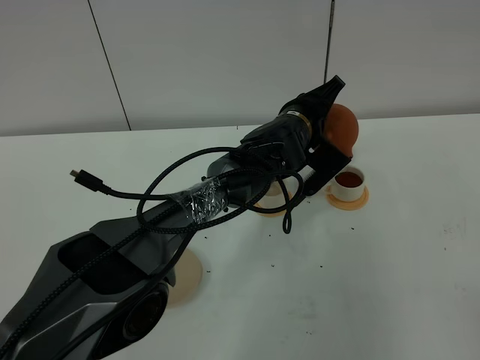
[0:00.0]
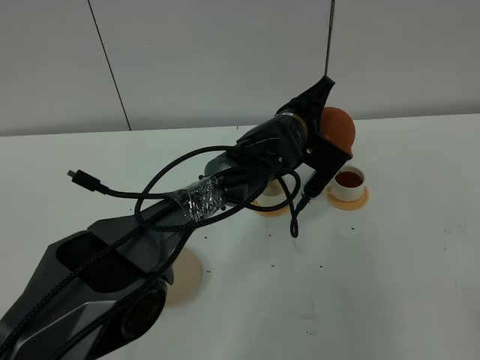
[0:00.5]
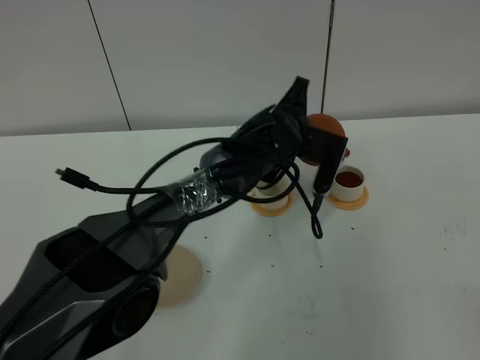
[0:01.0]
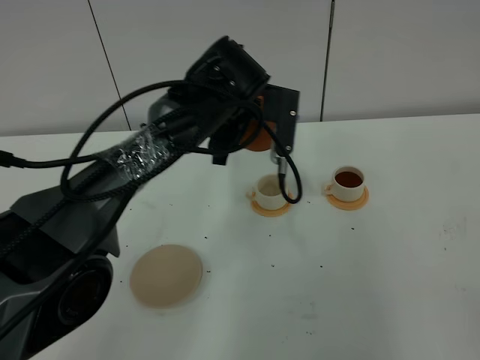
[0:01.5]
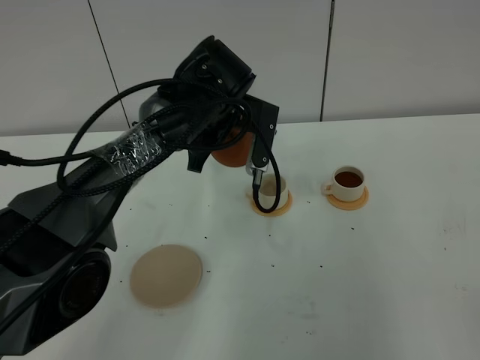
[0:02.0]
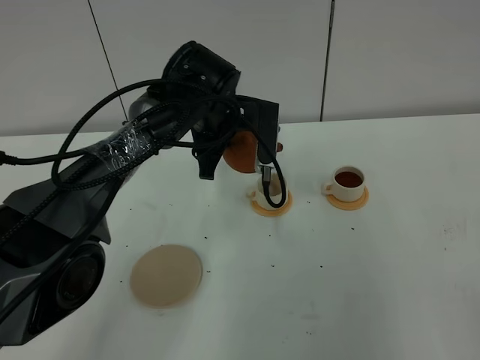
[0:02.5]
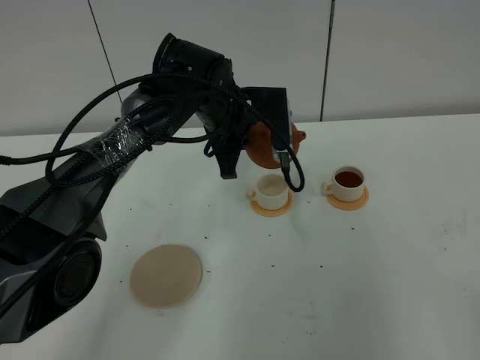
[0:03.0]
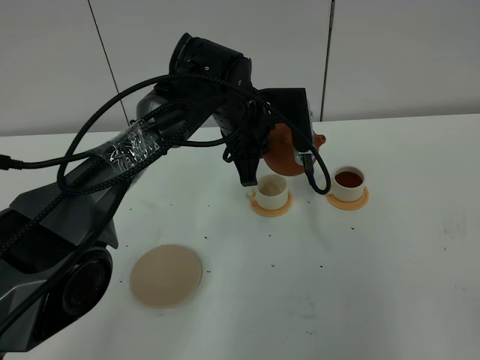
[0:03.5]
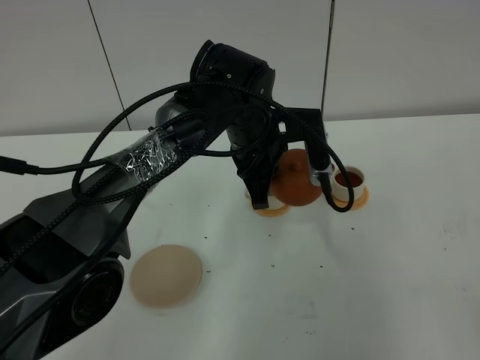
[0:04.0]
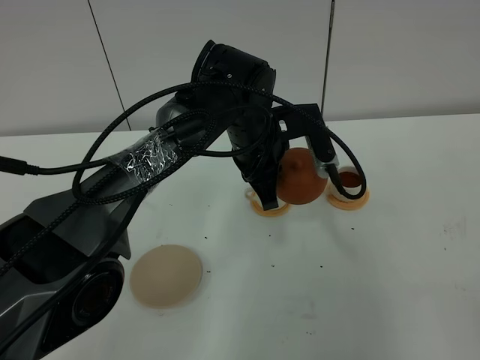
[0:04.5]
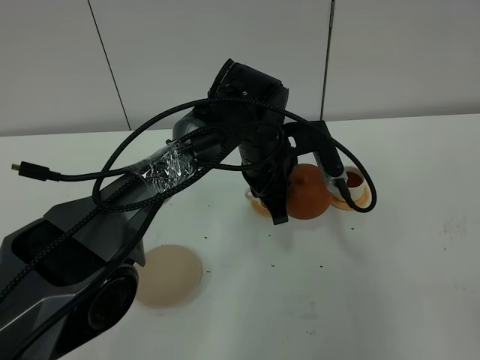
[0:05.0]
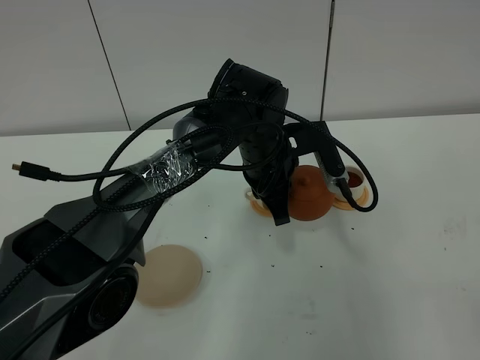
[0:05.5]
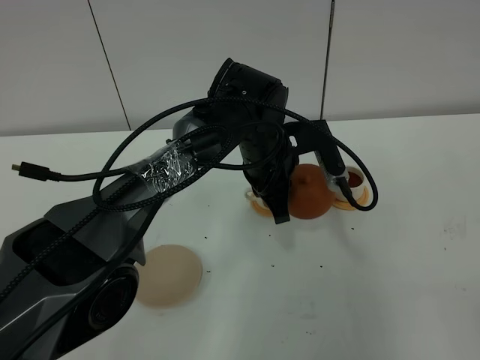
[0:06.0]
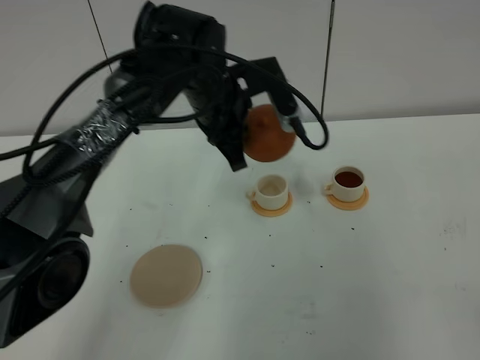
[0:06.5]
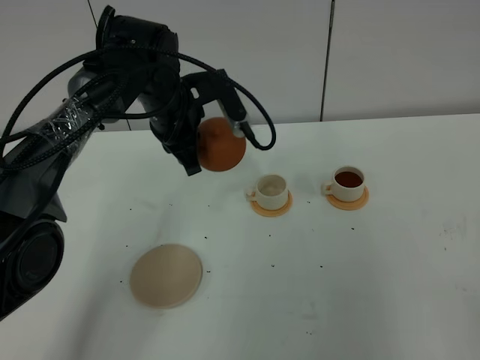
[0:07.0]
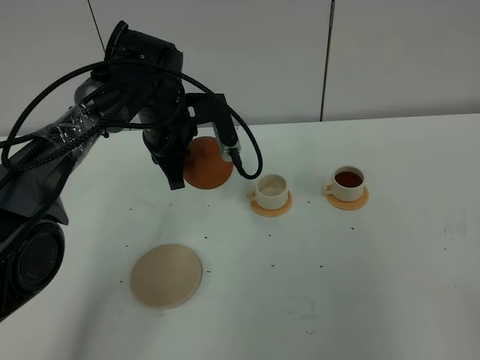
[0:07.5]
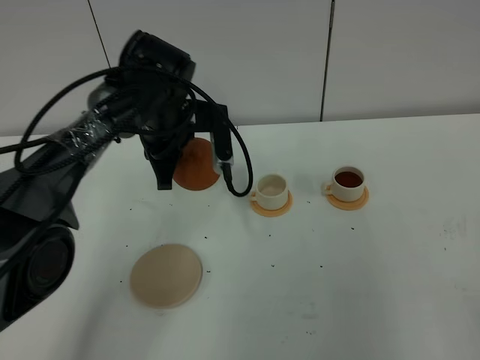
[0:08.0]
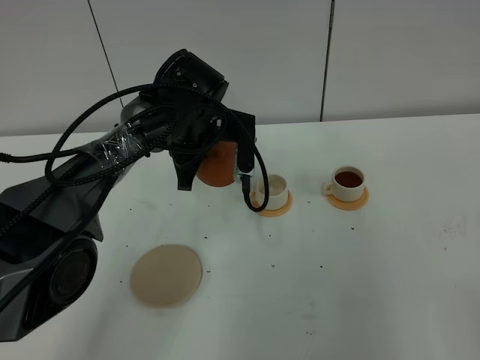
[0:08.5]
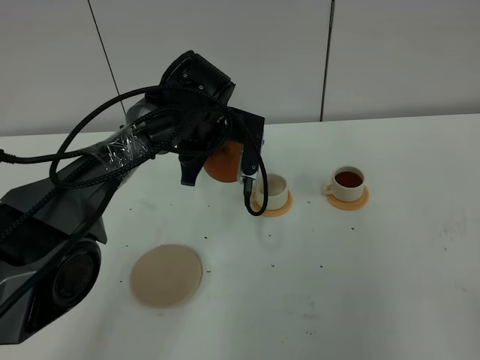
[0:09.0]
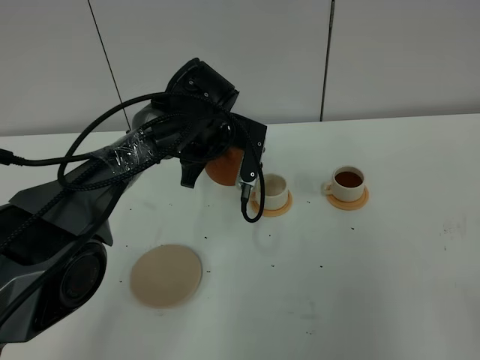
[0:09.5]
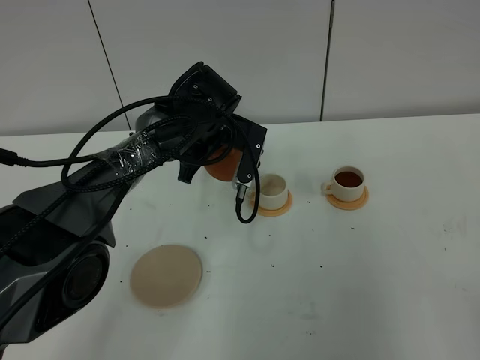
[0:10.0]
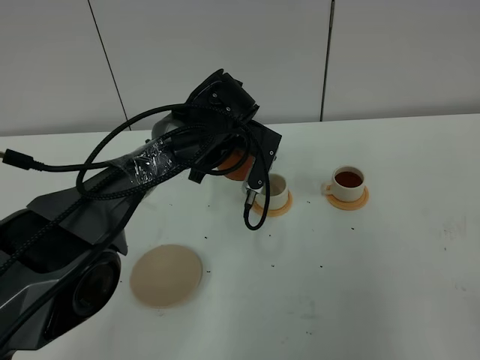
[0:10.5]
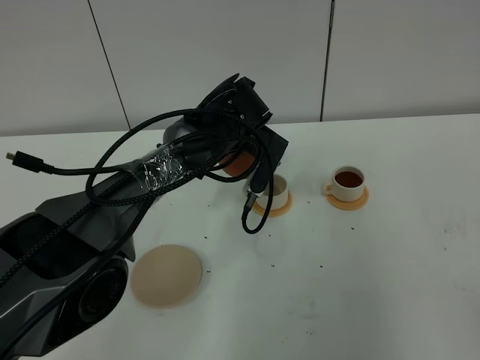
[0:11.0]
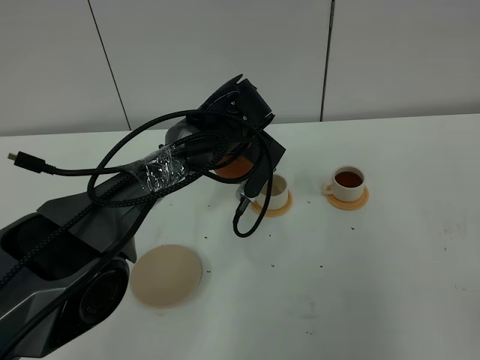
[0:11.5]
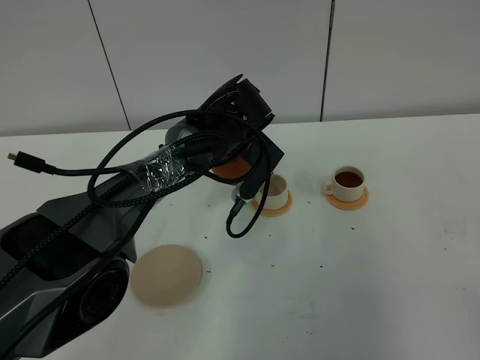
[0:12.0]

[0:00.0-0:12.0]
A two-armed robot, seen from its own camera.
Task of the whole recording: grasp the brown teapot and pour the tea into the two white teacups one by one, put the brown teapot back in its original place.
0:00.0 to 0:02.0: The left gripper goes some 15 cm to the left and upward.
0:02.0 to 0:04.0: The left gripper changes place by about 5 cm.
0:04.0 to 0:06.0: There are only small adjustments of the grippers.
0:06.0 to 0:08.0: The left gripper goes approximately 15 cm to the left.
0:08.0 to 0:10.0: The left gripper travels to the right by approximately 5 cm.

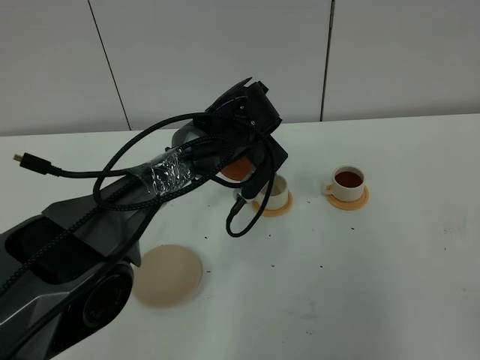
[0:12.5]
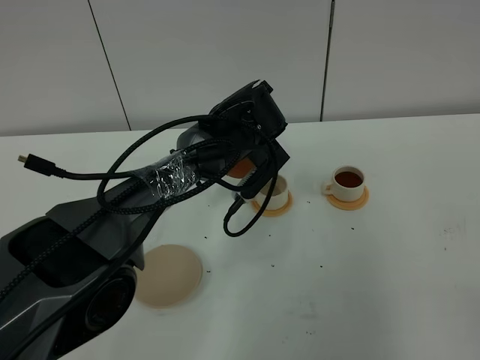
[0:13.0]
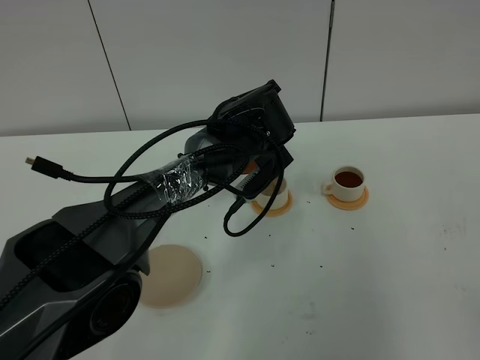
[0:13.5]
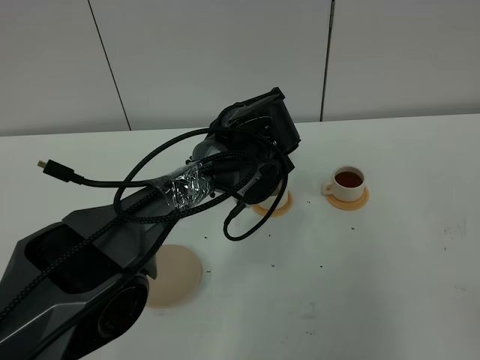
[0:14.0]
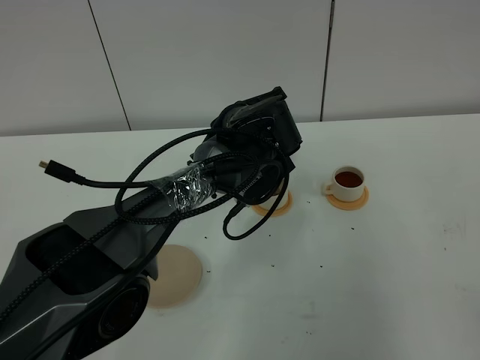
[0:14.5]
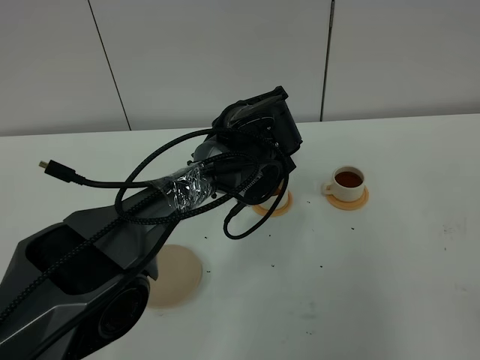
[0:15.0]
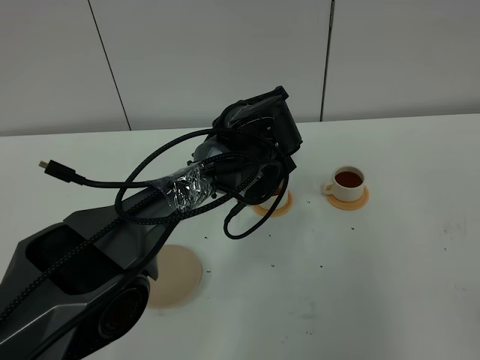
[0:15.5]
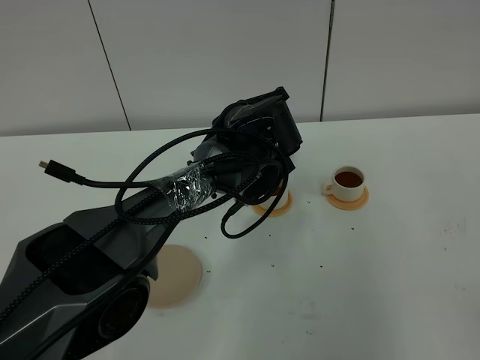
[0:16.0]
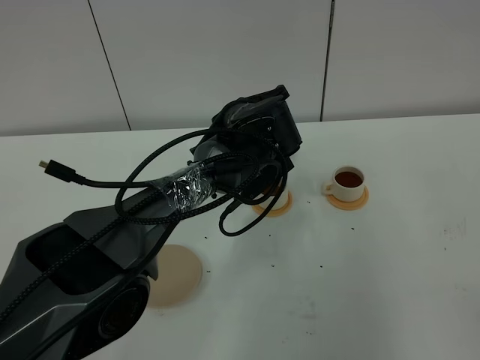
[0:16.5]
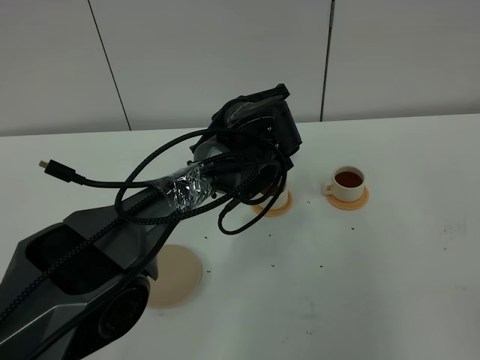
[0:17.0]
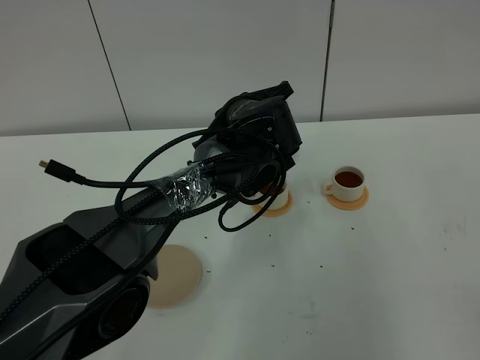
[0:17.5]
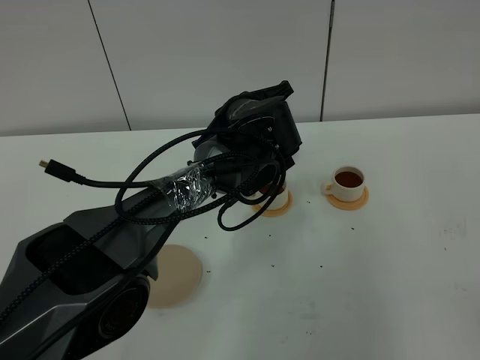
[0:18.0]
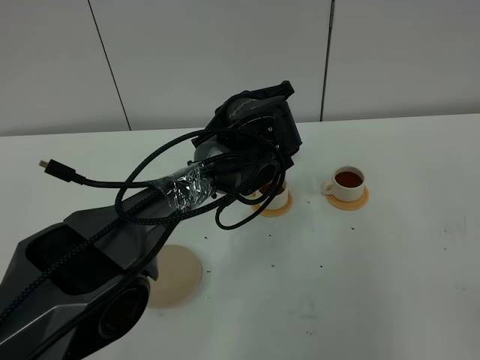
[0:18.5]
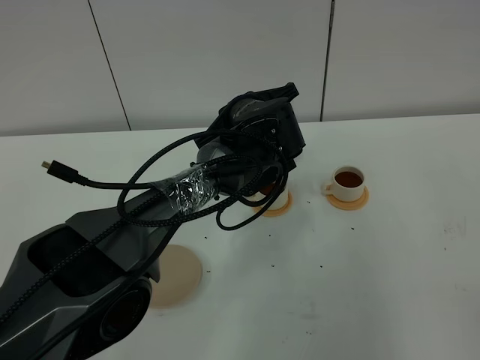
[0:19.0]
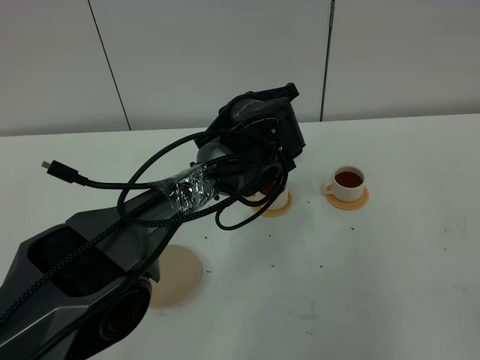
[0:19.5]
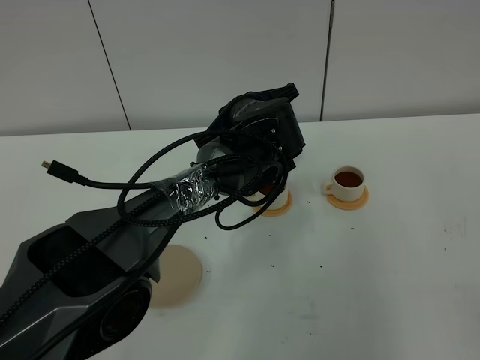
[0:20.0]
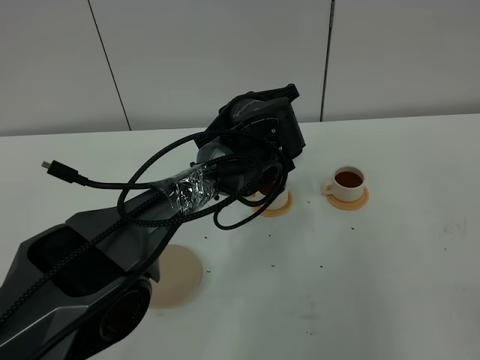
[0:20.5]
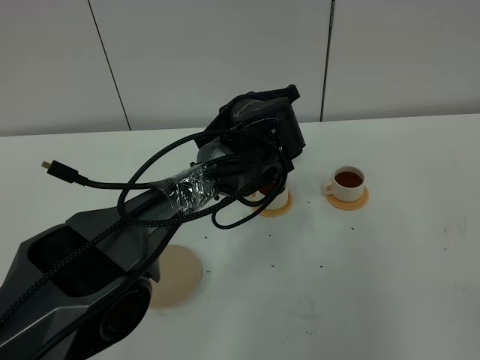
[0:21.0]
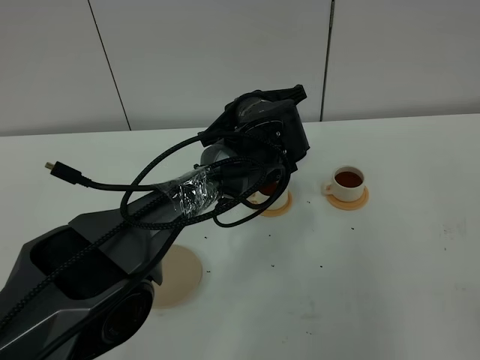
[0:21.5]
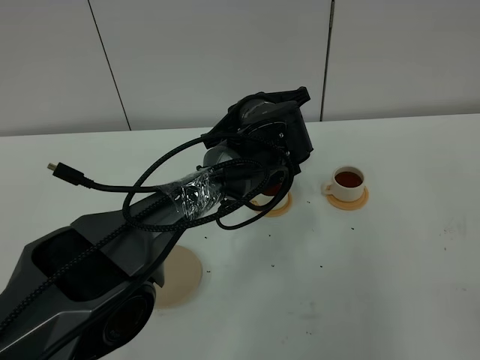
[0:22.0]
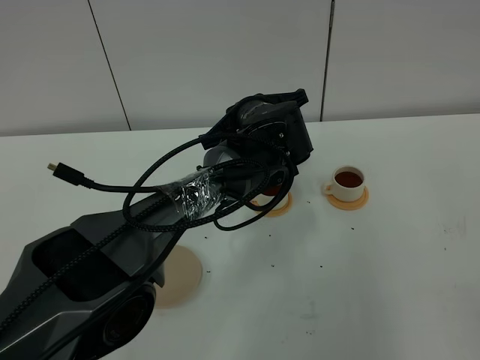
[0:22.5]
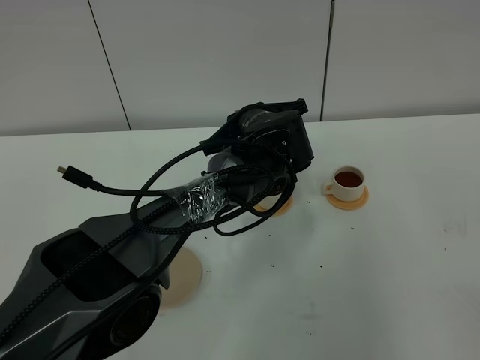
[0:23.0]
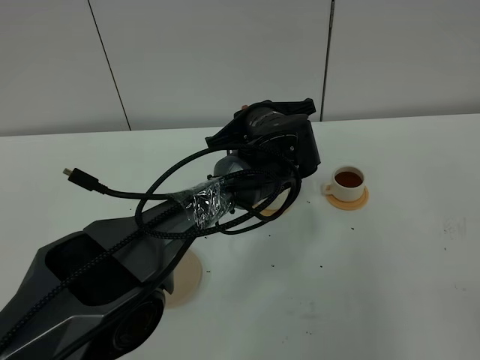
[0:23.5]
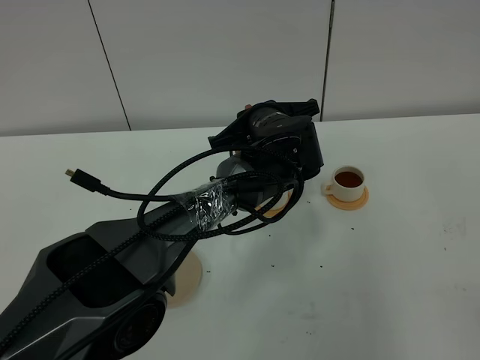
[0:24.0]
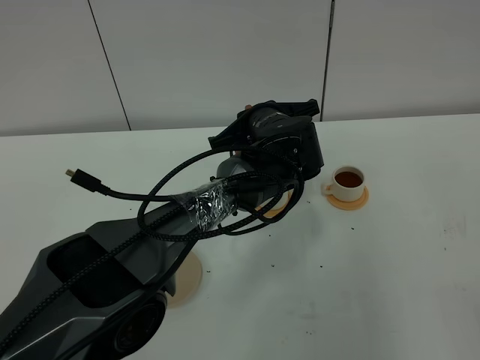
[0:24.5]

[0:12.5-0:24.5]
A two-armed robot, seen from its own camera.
Task of the whole recording: grasp the brown teapot and pour the tea into the two white teacups one by one, put the brown teapot back in its original place.
0:12.5 to 0:14.5: The grippers move only a little.
0:14.5 to 0:16.5: Both grippers stay put.
0:16.5 to 0:18.5: Both grippers stay put.
0:18.5 to 0:20.5: Neither gripper changes place.
0:20.5 to 0:22.5: Both grippers stay put.
0:22.5 to 0:24.5: The grippers stay close to where they were, moving slightly.

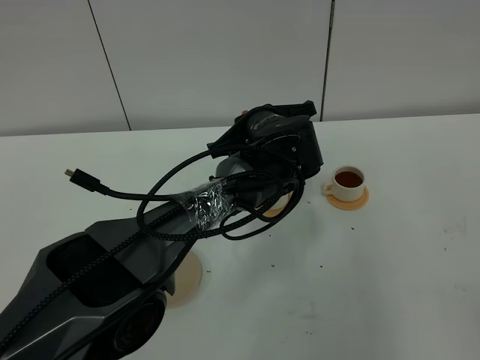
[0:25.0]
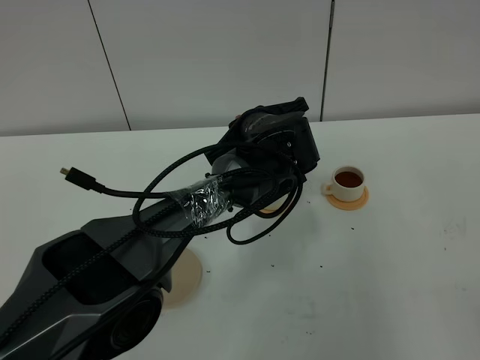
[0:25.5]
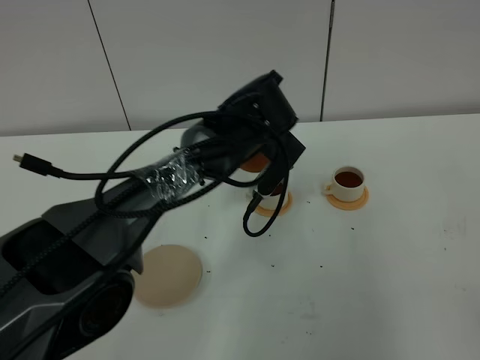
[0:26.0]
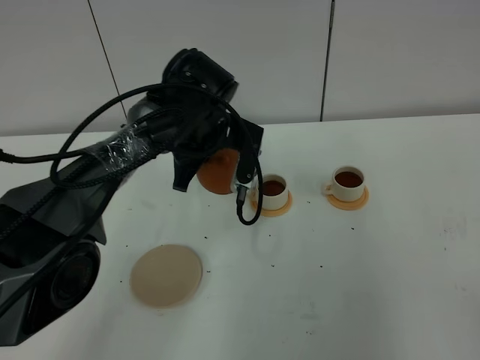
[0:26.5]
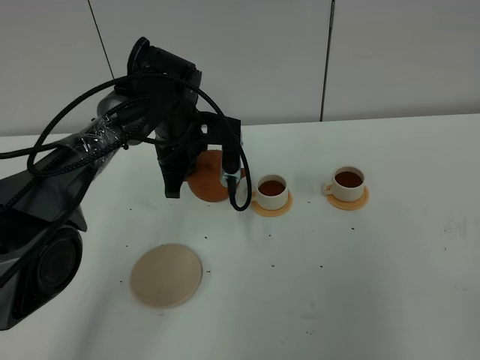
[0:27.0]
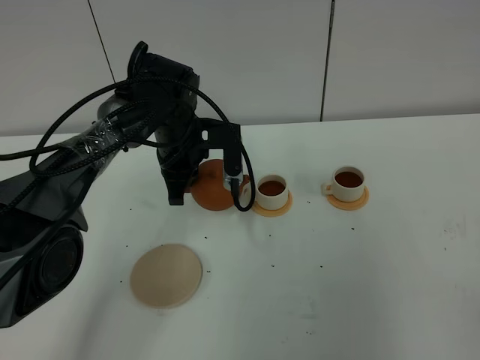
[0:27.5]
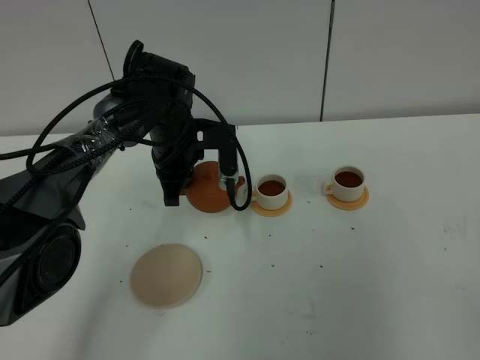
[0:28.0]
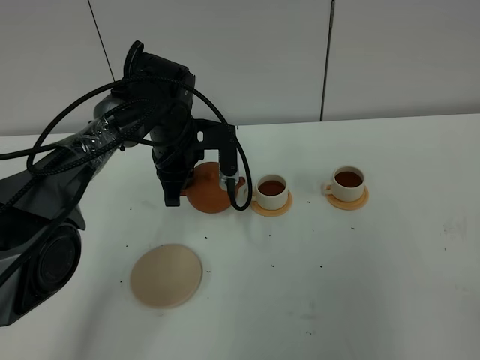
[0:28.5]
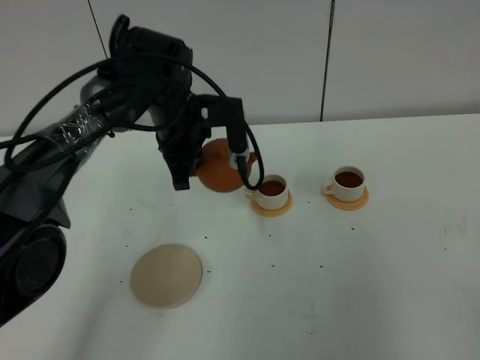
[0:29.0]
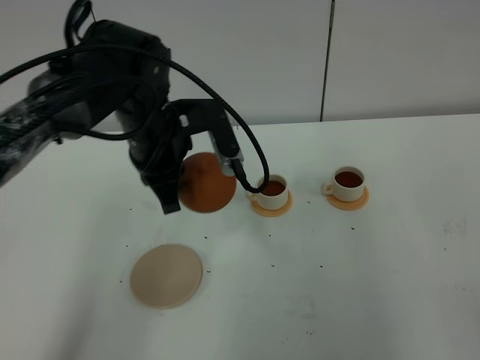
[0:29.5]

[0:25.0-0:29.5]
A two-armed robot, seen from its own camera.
Task of the whole recording: grasp the brown teapot and pour the tea into the two white teacups one by one, put the brown teapot back in its original place.
0:25.0 to 0:27.0: The left gripper shifts roughly 15 cm to the left.
0:27.0 to 0:29.5: The left gripper moves backward and upward, roughly 10 cm.
